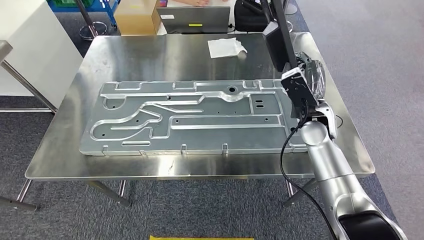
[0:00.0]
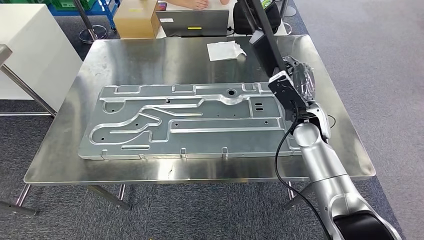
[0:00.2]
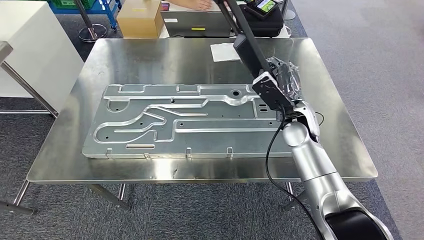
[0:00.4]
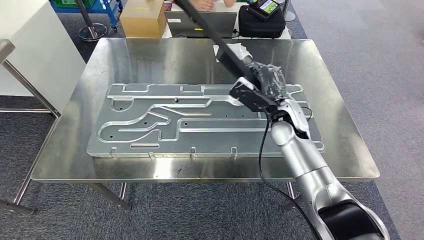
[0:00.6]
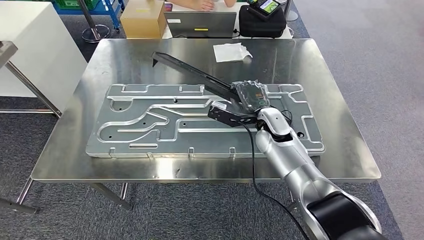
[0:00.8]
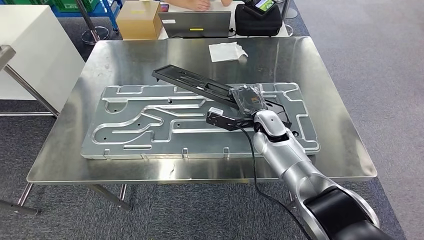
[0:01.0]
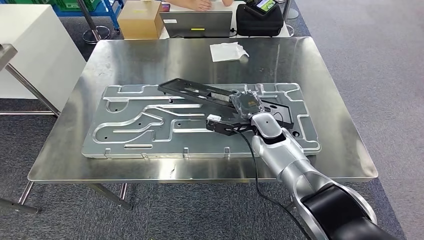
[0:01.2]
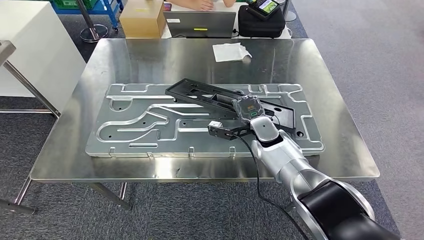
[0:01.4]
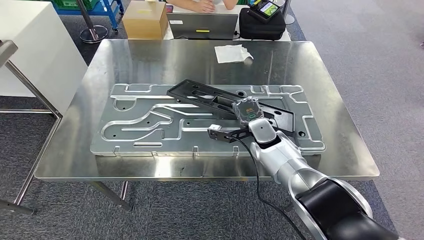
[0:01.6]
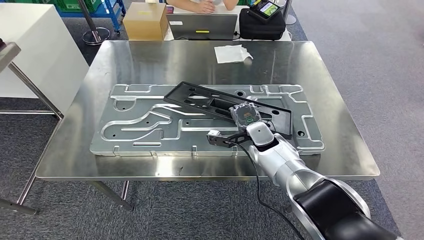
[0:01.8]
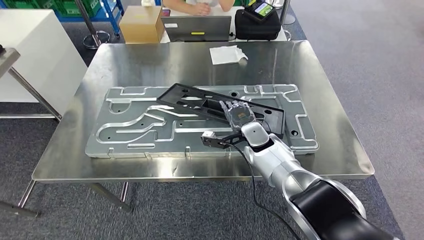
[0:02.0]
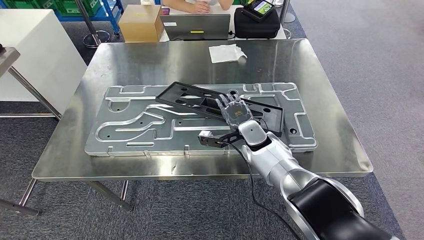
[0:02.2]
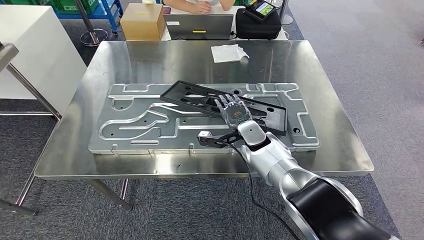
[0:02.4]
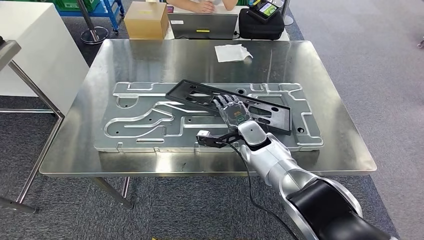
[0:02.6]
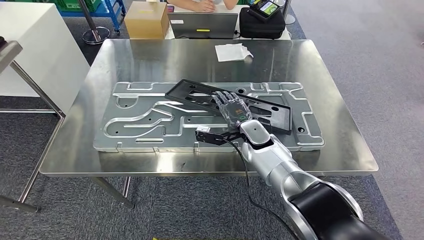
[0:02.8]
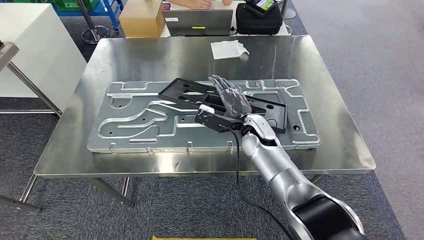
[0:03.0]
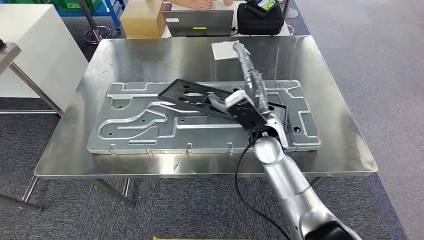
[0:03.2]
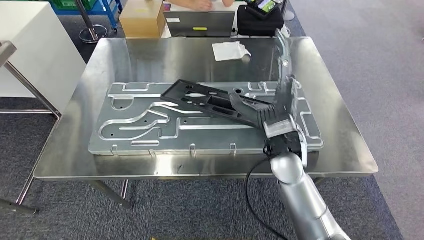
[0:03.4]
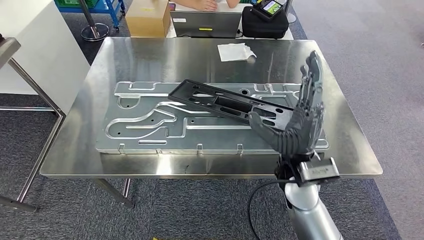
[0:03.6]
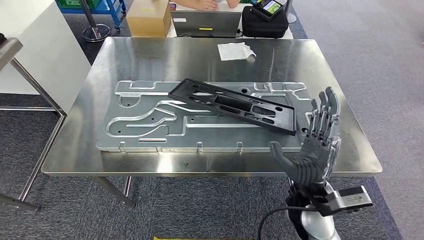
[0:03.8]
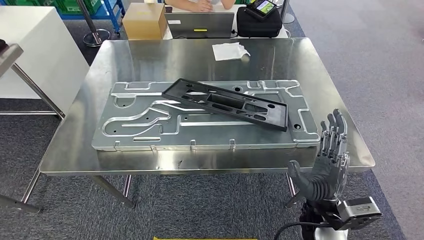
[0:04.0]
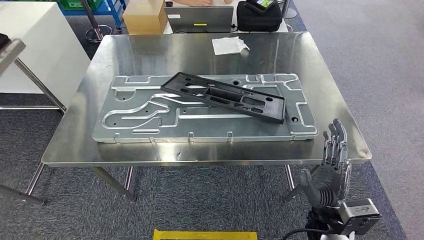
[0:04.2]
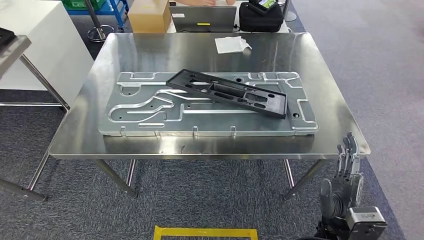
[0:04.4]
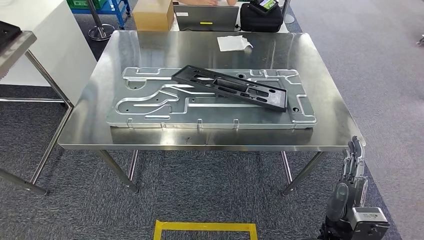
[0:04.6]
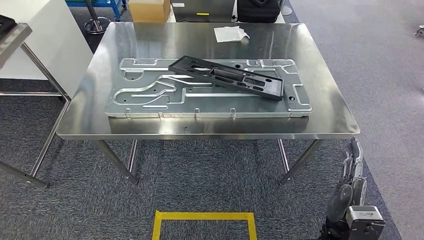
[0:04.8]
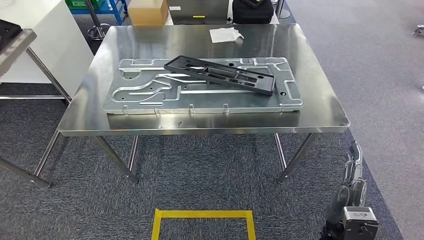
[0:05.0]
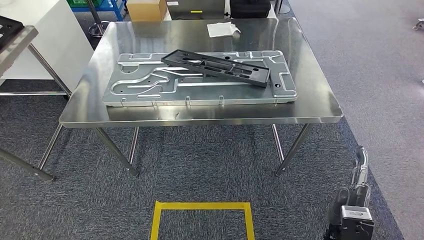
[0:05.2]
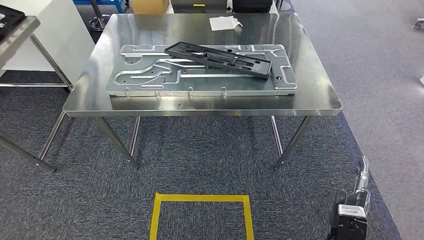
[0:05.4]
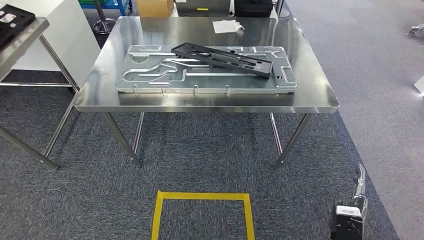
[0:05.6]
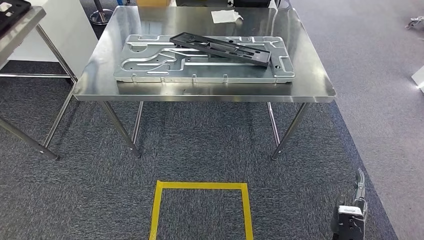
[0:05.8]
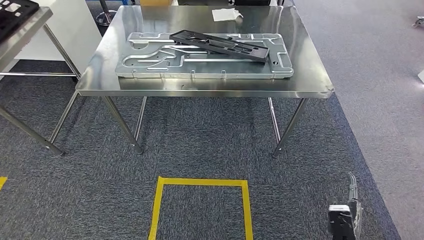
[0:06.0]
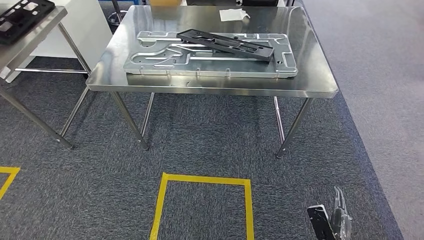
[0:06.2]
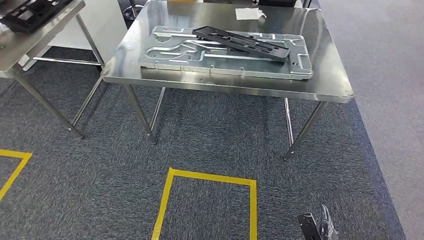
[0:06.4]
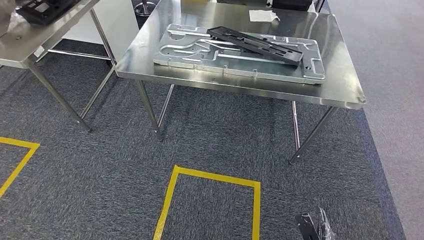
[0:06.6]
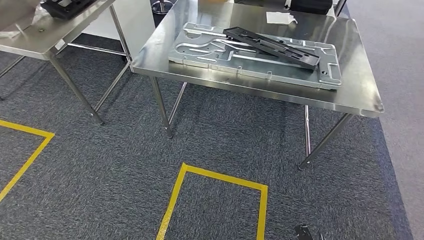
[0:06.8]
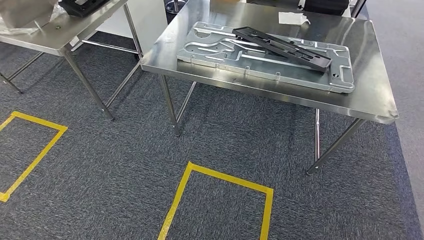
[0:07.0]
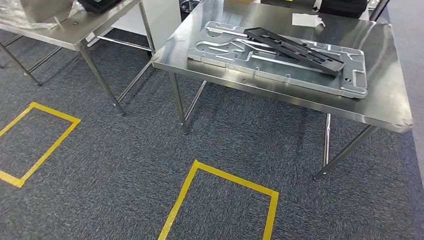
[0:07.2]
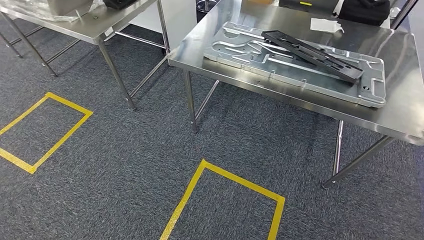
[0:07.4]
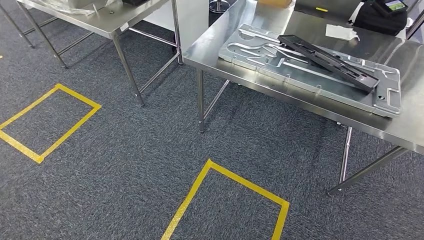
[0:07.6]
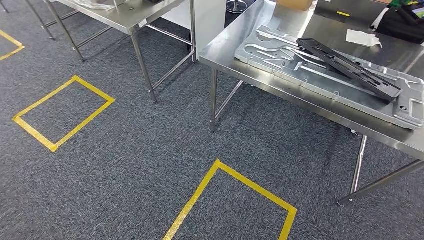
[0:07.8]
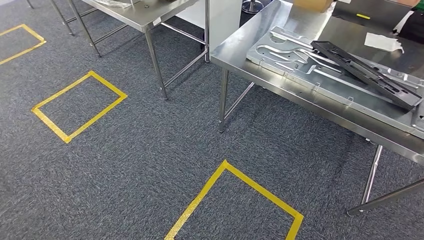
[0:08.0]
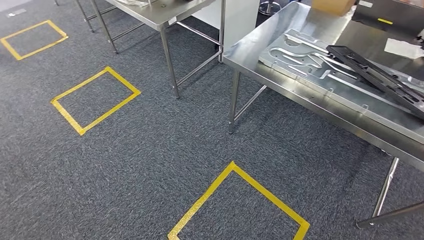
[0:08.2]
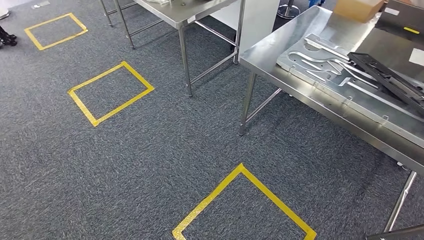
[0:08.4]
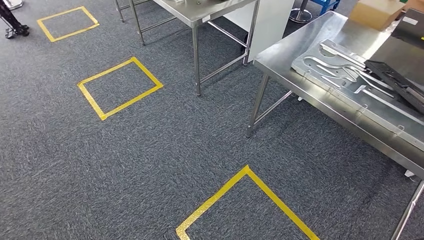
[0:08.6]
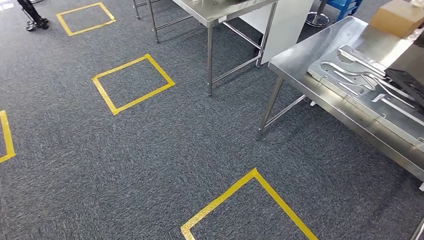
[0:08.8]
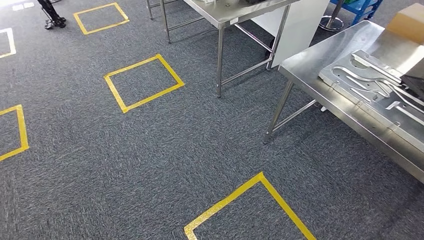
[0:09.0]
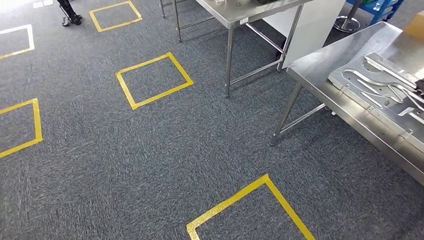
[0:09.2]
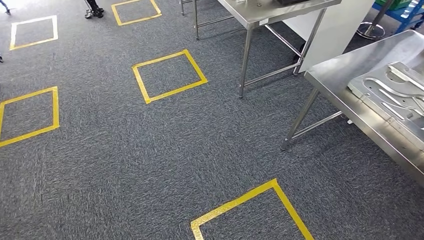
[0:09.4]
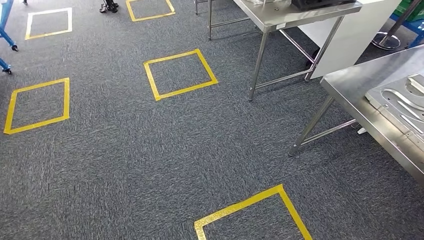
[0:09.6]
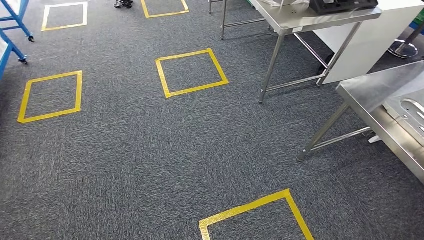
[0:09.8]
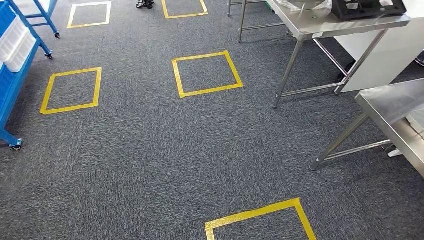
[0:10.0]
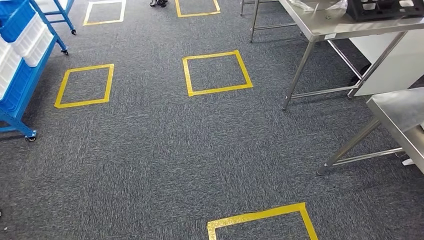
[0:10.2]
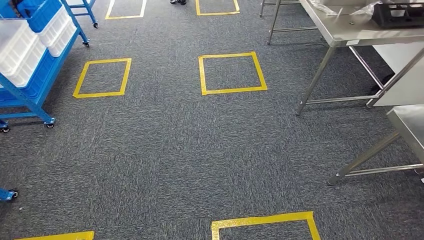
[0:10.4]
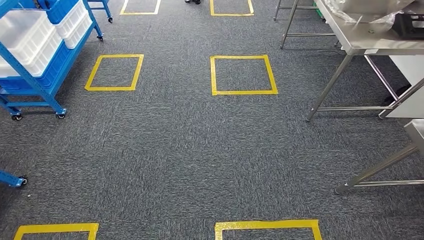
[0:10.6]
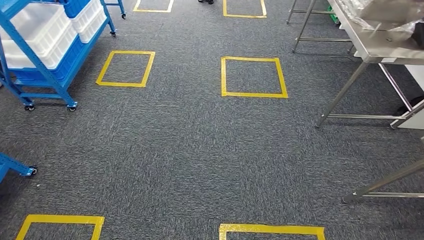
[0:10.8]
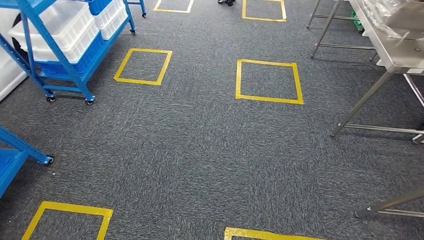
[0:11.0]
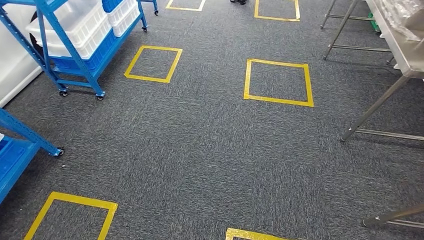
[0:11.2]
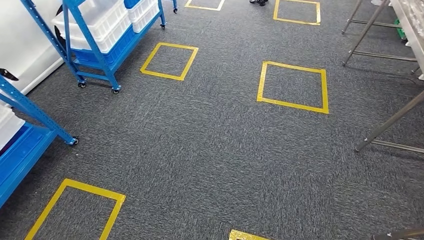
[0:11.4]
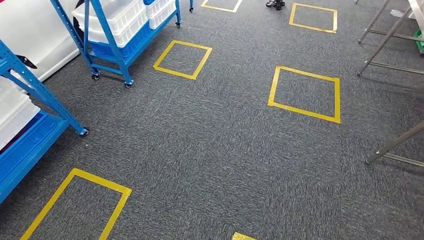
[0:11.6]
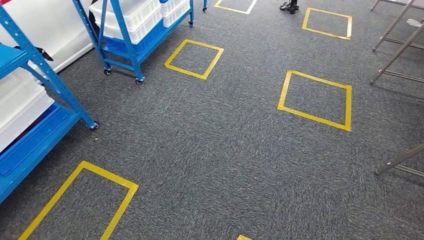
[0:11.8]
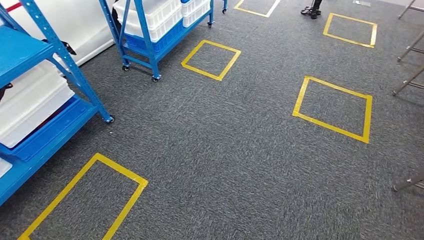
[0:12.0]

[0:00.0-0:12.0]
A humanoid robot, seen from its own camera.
Step, 0:00.0 to 0:05.2: Insert the large material into the corresponding slot on the workbench.

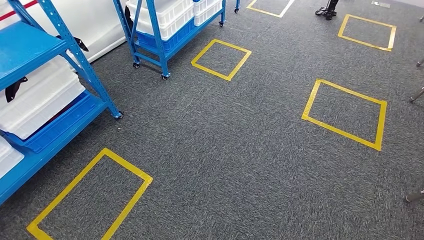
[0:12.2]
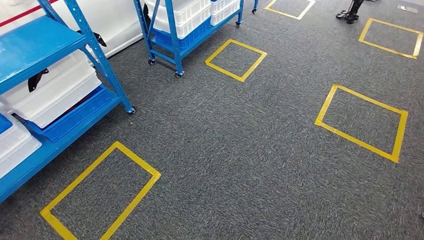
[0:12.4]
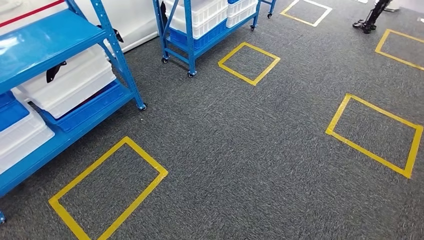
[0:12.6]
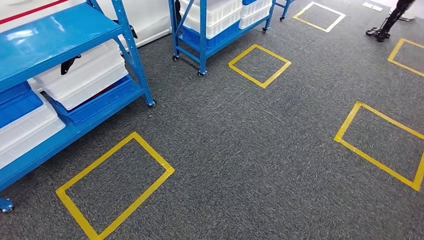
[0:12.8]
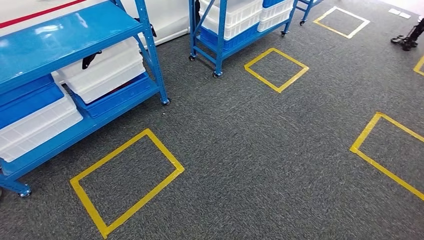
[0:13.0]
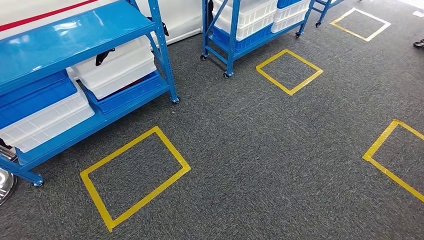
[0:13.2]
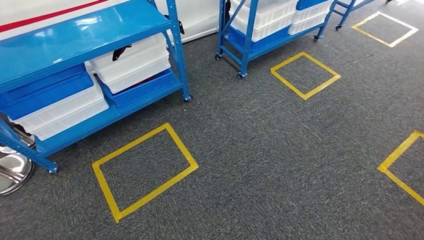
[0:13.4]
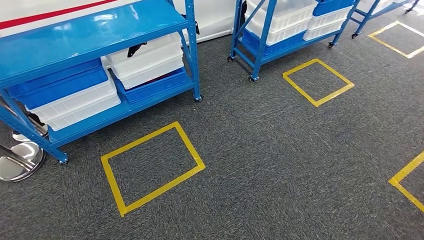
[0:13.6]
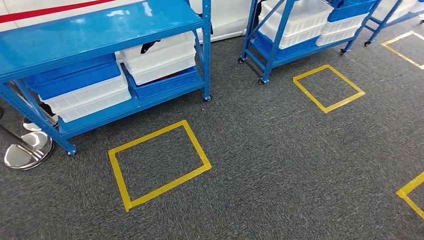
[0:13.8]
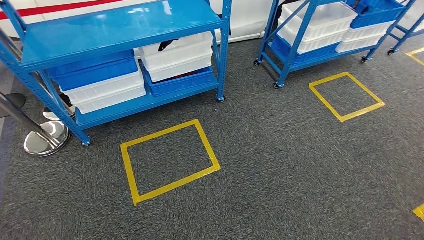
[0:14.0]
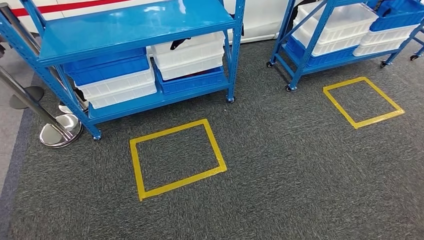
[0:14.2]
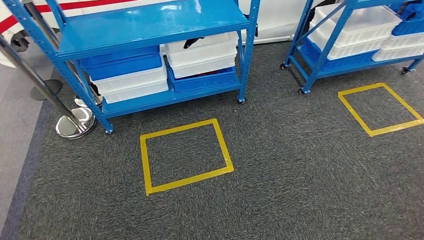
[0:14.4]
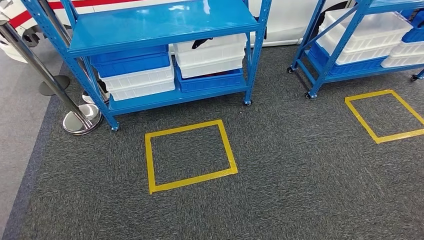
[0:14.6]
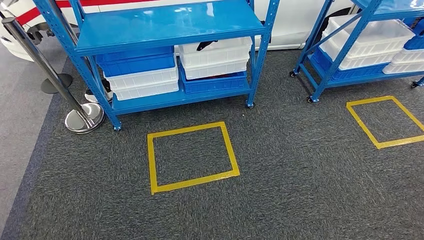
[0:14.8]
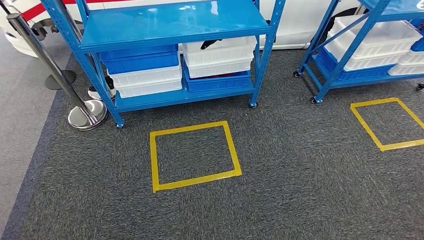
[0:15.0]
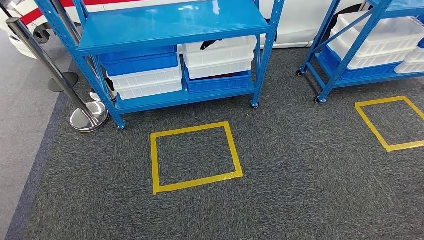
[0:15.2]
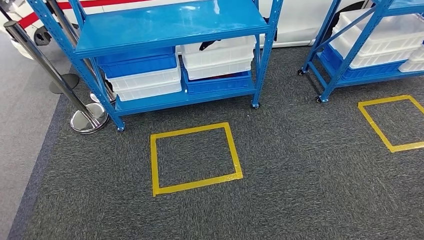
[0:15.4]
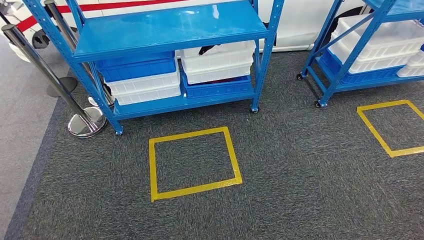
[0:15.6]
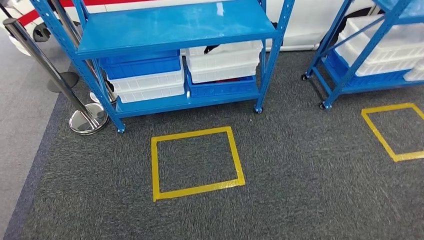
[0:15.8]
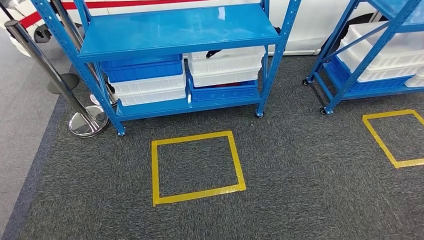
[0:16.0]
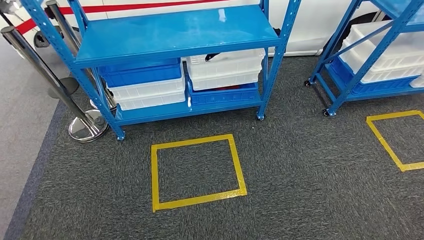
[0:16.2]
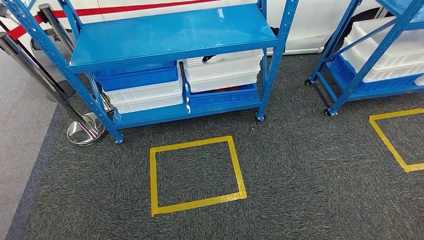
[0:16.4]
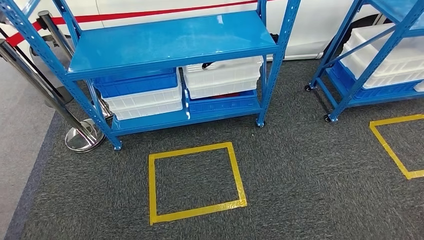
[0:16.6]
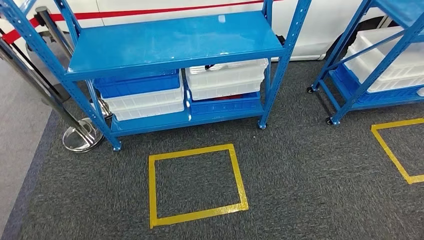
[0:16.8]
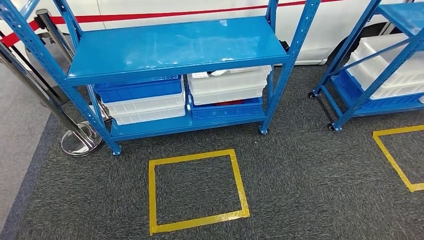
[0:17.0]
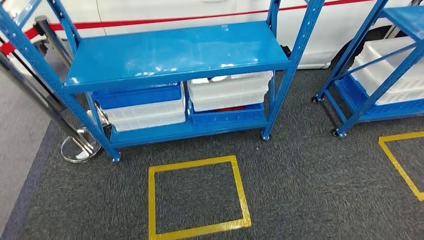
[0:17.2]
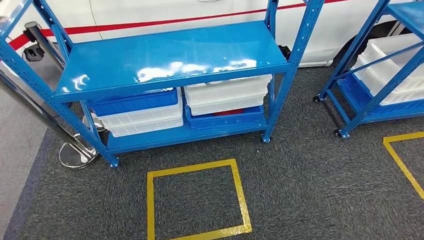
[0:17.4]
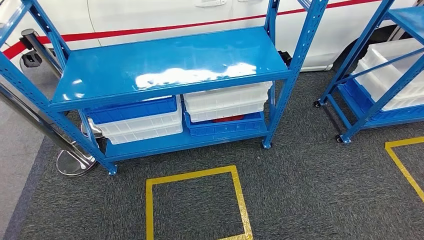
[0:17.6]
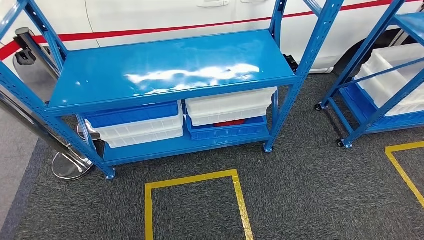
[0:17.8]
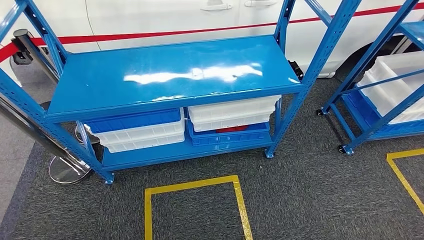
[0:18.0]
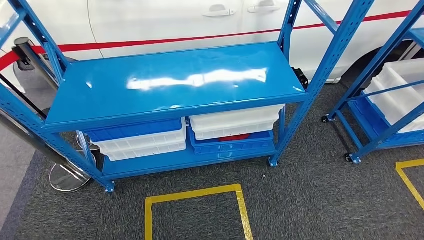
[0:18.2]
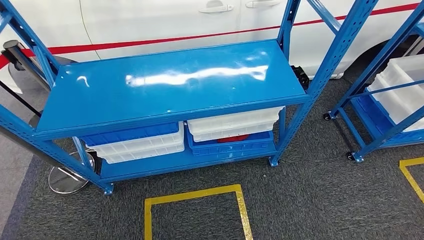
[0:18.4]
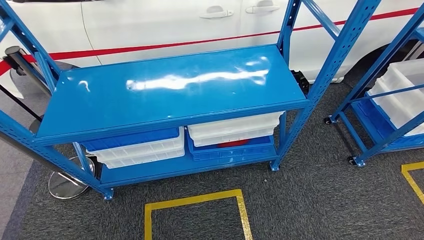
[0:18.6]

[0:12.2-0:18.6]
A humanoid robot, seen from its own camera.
Step, 0:12.2 to 0:18.6: Move to the initial position of the shelf.
